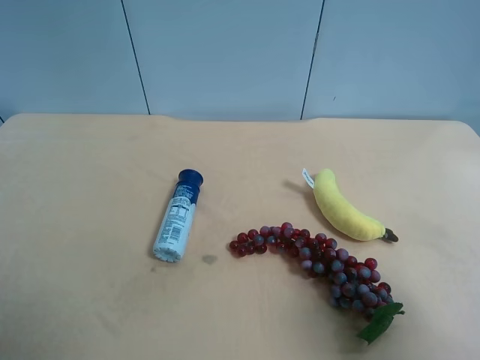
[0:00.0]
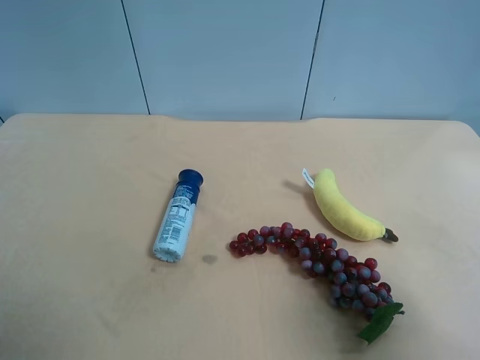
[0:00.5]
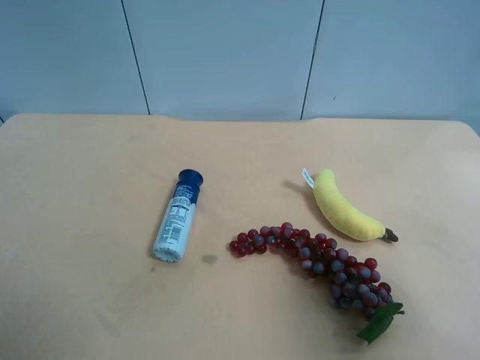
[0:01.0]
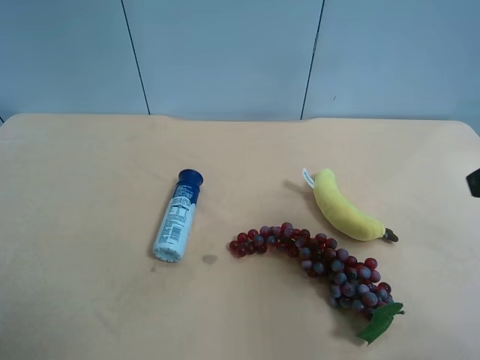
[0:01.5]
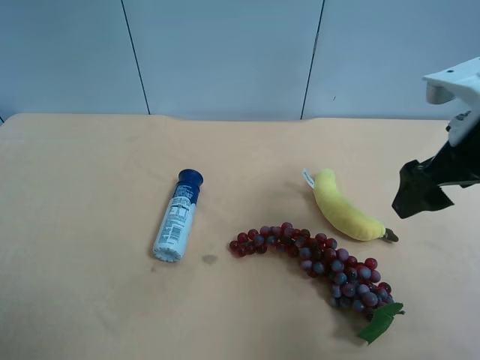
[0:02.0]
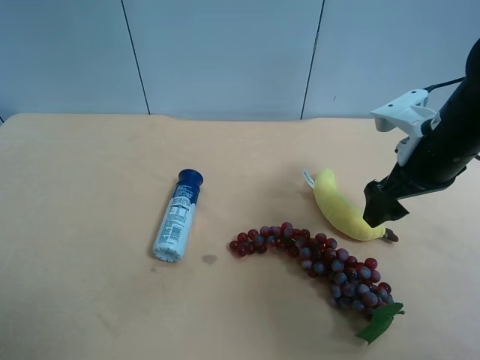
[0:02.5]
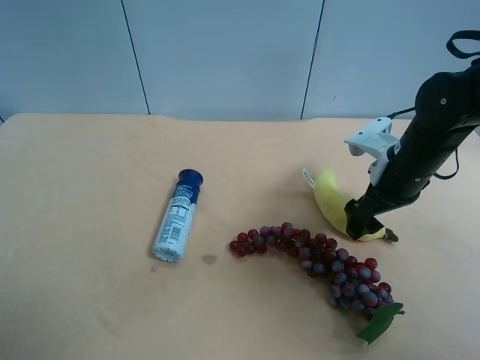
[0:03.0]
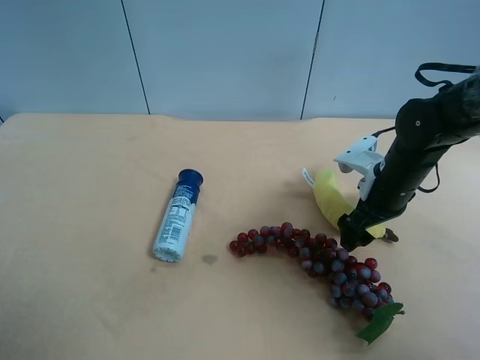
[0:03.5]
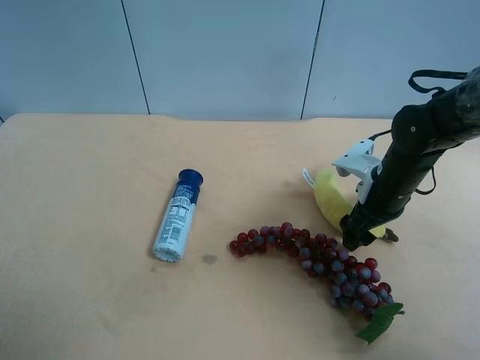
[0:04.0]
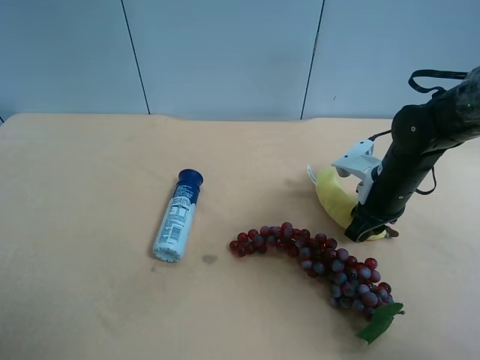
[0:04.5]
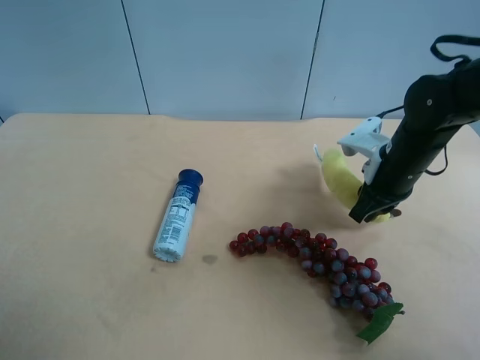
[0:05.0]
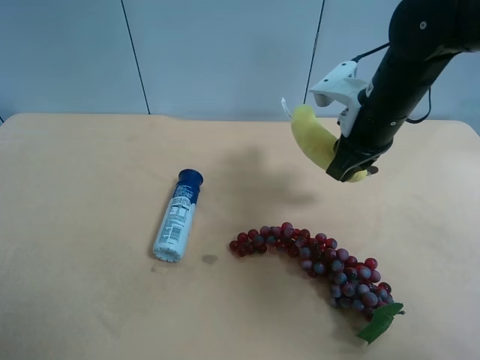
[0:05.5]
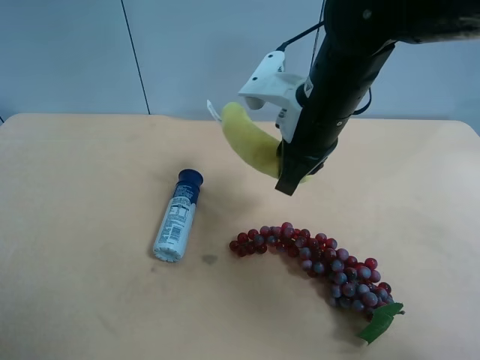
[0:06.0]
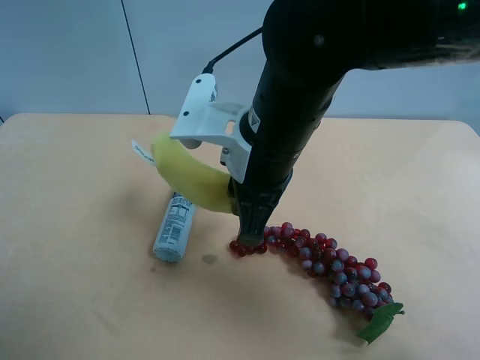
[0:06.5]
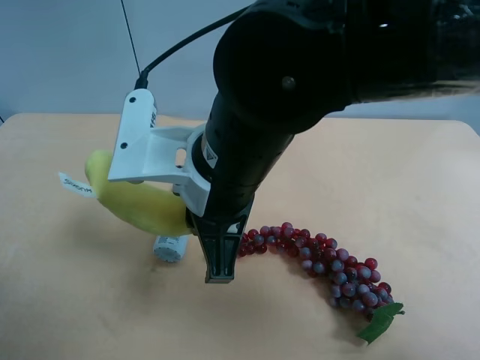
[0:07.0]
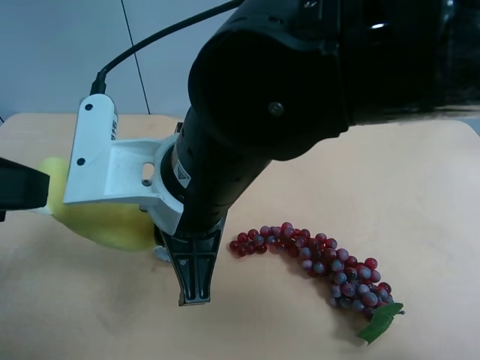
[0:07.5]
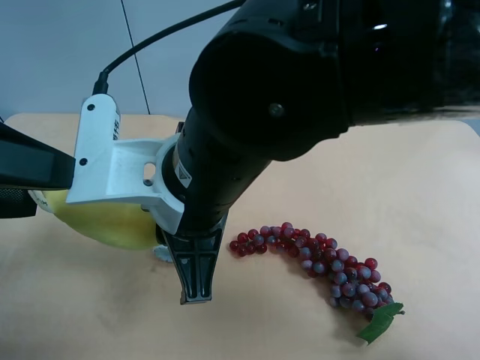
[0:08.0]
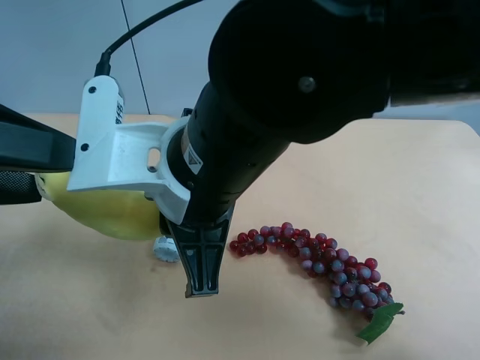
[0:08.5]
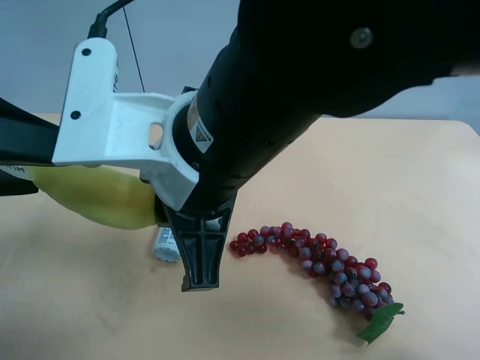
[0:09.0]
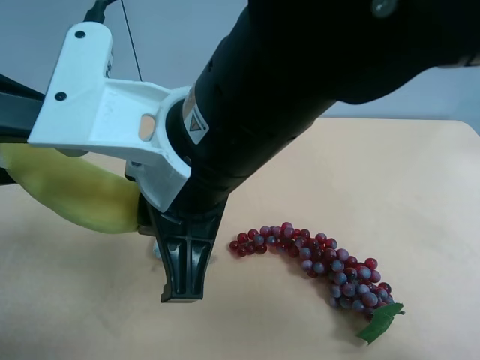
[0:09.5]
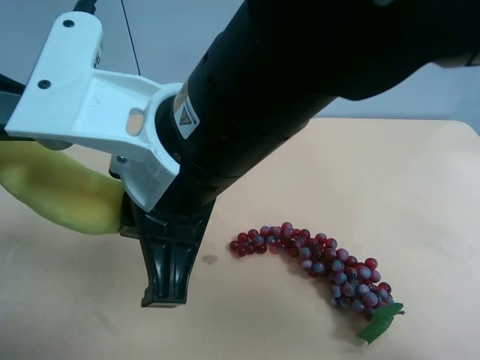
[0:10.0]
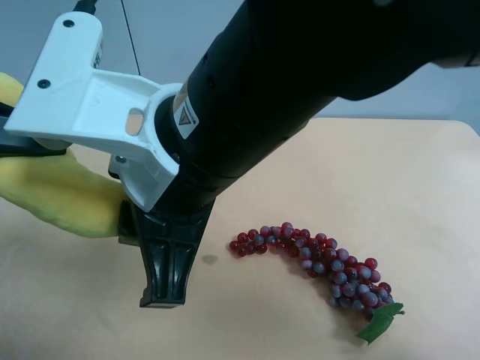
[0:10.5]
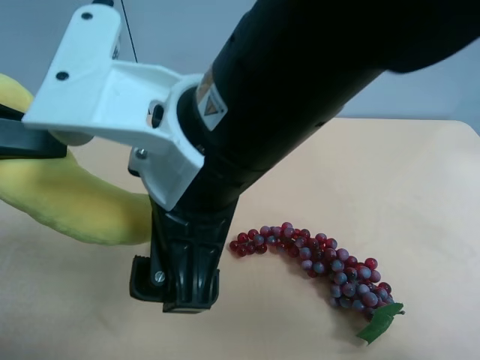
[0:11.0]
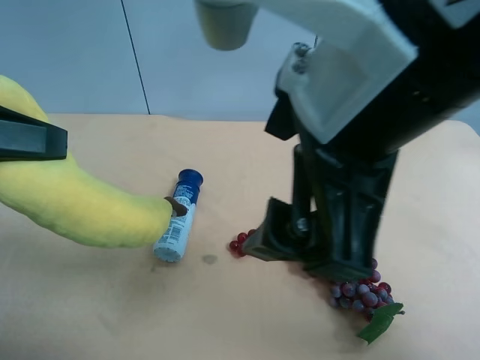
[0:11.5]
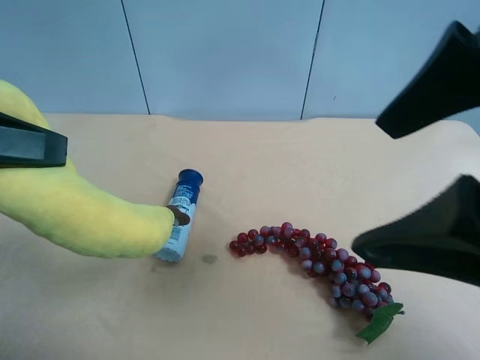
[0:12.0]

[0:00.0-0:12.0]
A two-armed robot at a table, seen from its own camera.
Task of the whole recording: use the right gripper to pick up the item and transfer it from the right gripper to the left gripper.
0:00.0 to 0:02.0: The right gripper travels forward by roughly 20 cm.
0:02.0 to 0:04.0: The right gripper moves downward and forward, approximately 15 cm.
0:04.0 to 0:06.0: The right gripper shifts roughly 20 cm to the left and upward, and closes up.
0:06.0 to 0:08.0: The left gripper moves forward and to the right, some 15 cm; the right gripper shifts about 15 cm backward and to the left.
0:10.0 to 0:12.0: The left gripper closes. The right gripper travels to the right and upward by some 20 cm, and opens its fingers.

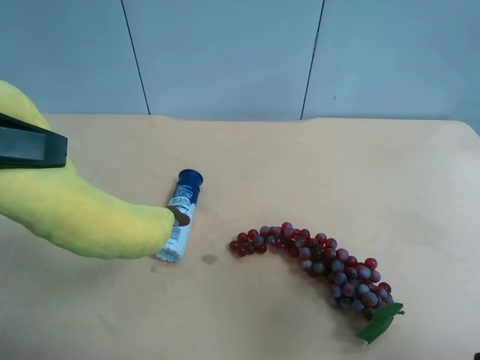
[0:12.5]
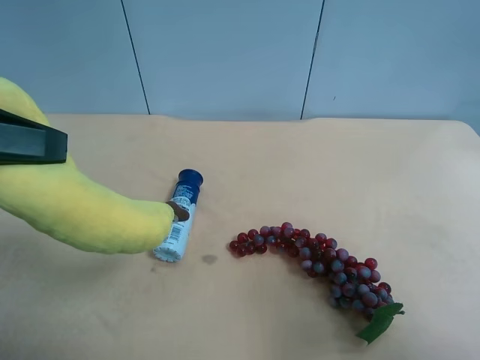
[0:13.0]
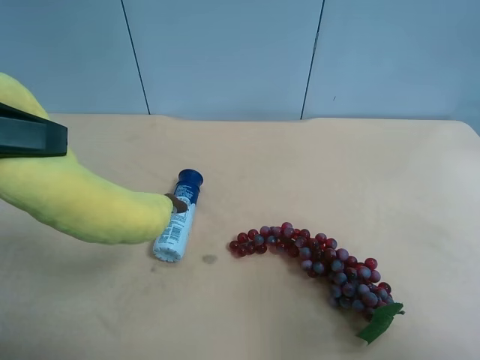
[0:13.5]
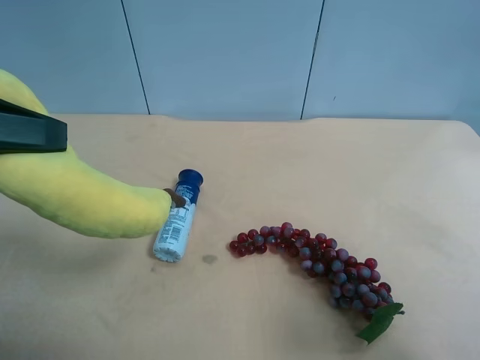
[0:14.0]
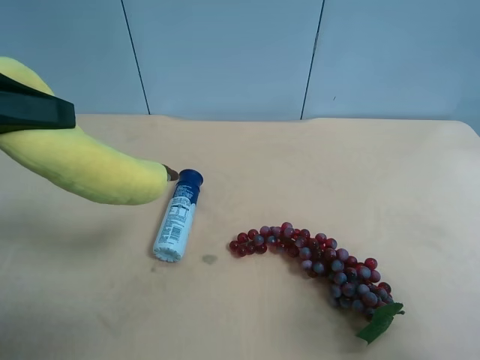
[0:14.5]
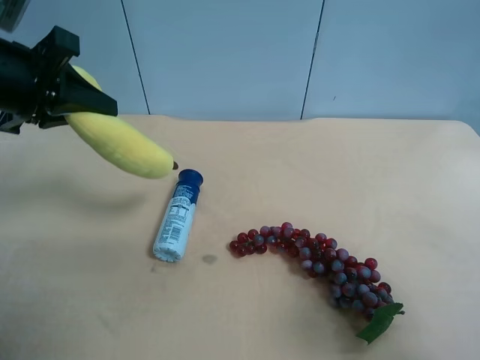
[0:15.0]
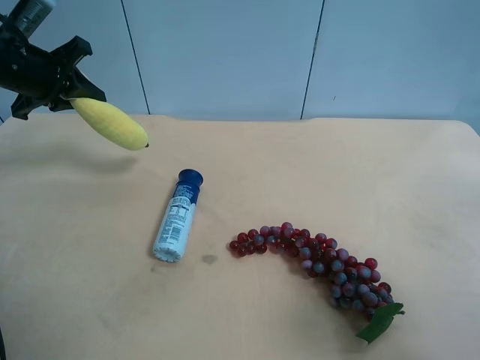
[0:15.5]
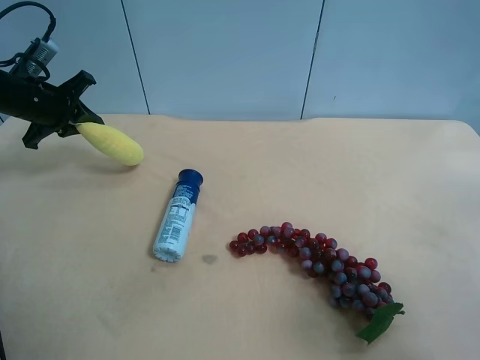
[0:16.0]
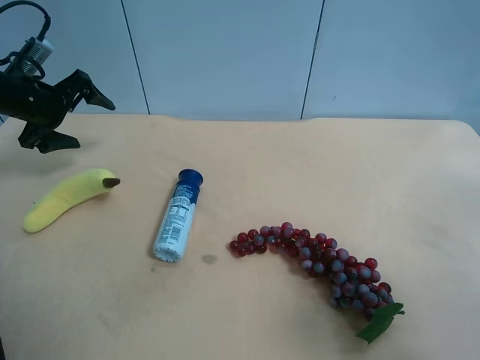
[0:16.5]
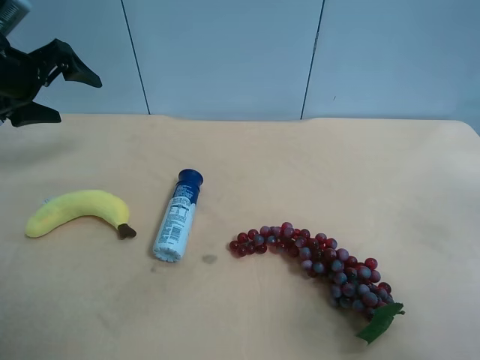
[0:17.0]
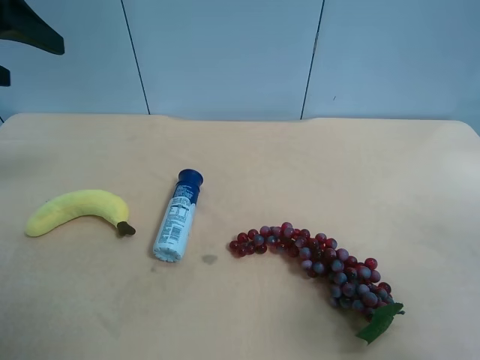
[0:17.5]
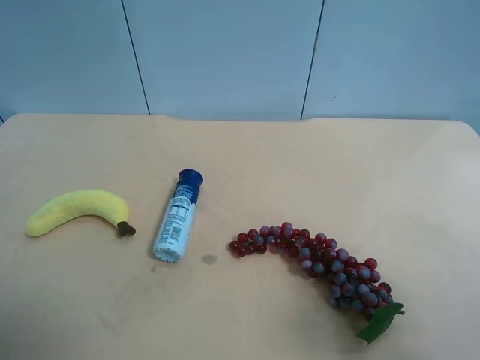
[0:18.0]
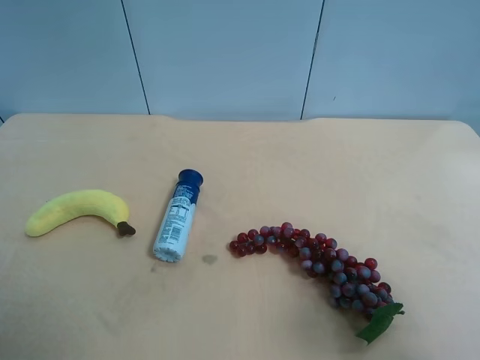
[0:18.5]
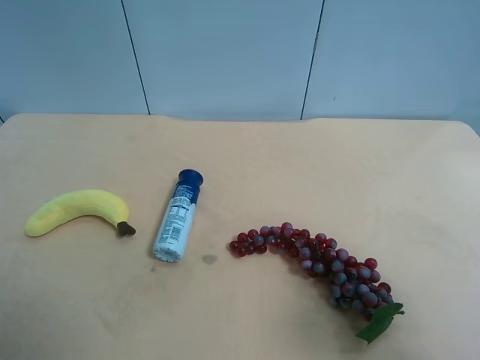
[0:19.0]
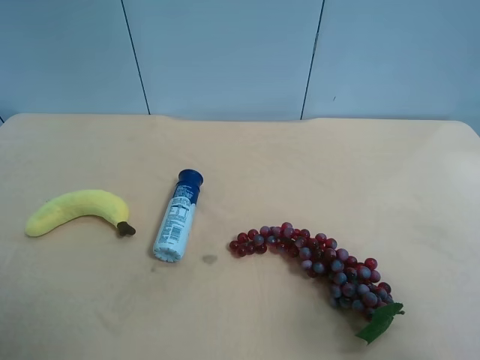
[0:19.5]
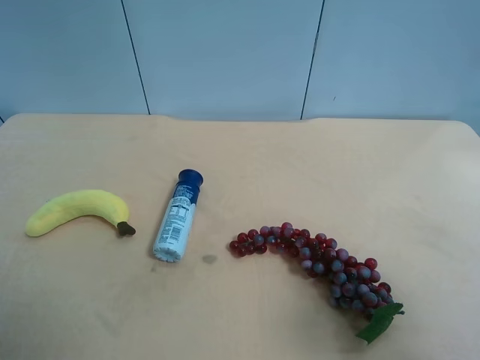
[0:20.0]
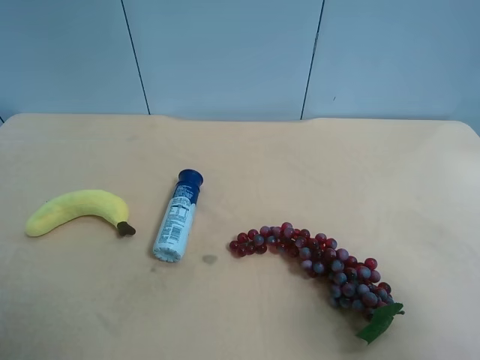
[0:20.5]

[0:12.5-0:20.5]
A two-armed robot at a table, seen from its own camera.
Task of the whole recording: use the right gripper to pick up the item and transfer it from the right gripper to the left gripper.
0:12.5 to 0:14.5: The right gripper travels to the right by roughly 5 cm.
0:14.5 to 0:16.5: The left gripper heads forward and downward, covering roughly 25 cm, and opens its fingers.
0:16.5 to 0:18.5: The left gripper shifts about 35 cm backward.
